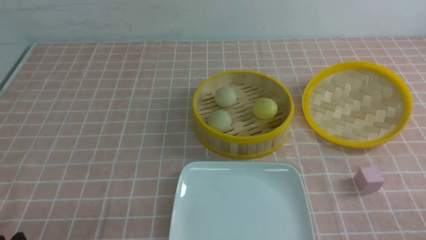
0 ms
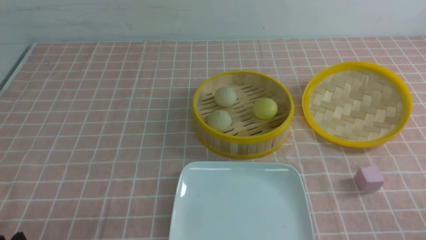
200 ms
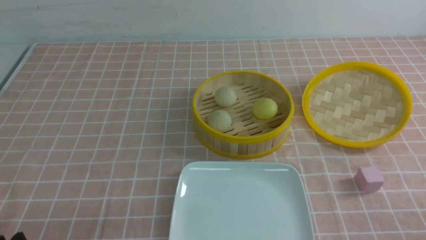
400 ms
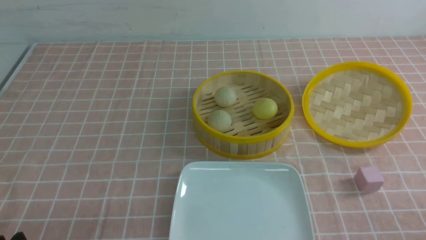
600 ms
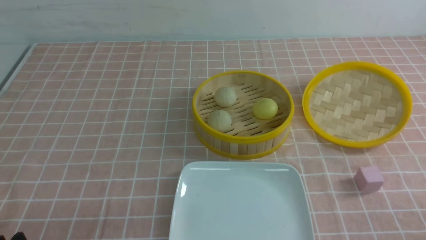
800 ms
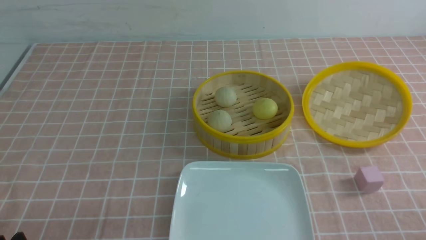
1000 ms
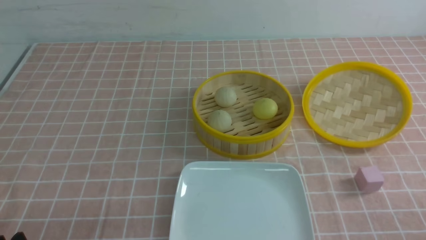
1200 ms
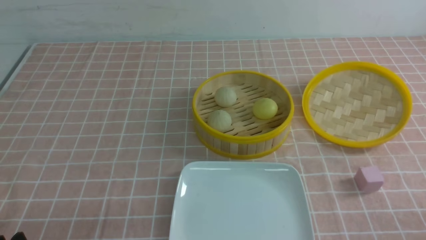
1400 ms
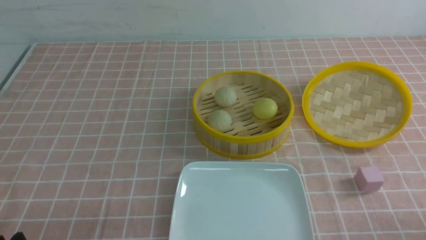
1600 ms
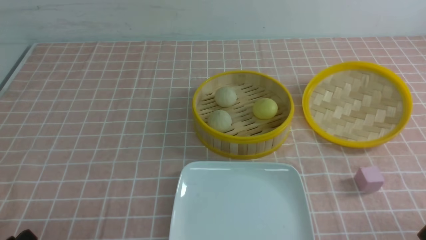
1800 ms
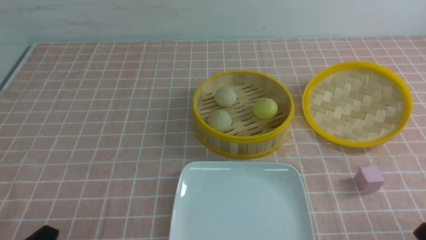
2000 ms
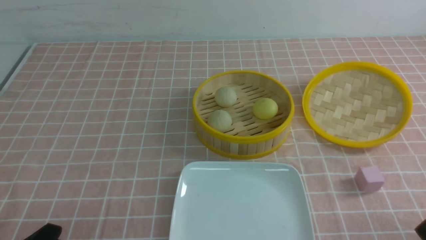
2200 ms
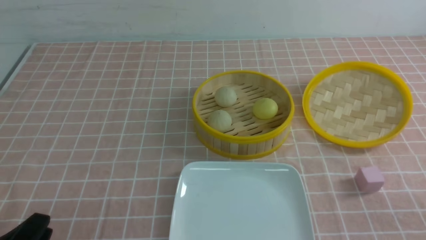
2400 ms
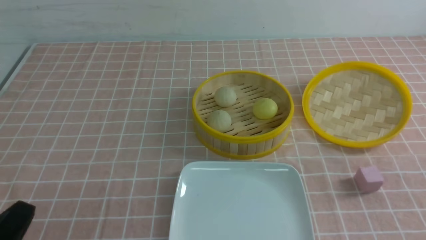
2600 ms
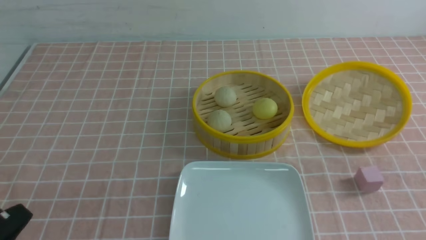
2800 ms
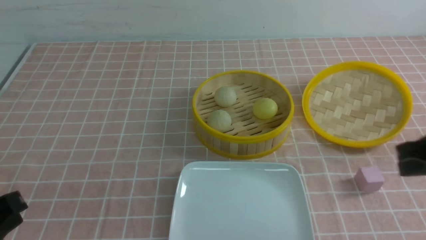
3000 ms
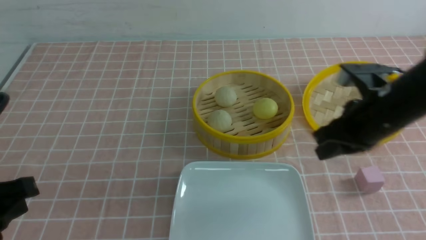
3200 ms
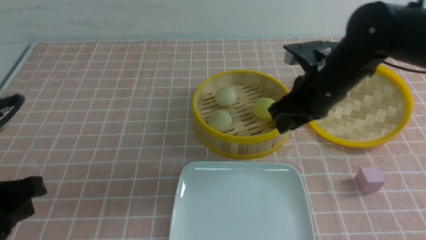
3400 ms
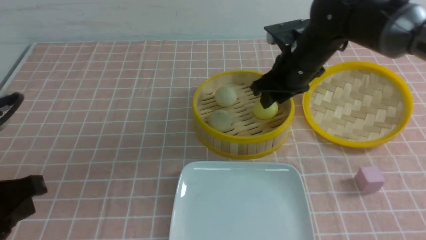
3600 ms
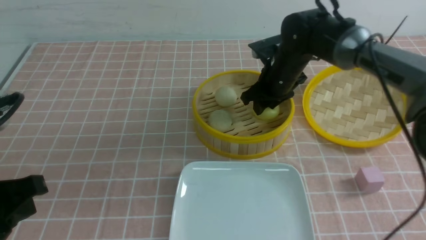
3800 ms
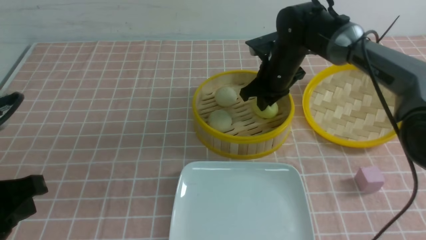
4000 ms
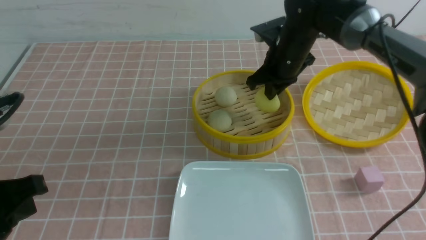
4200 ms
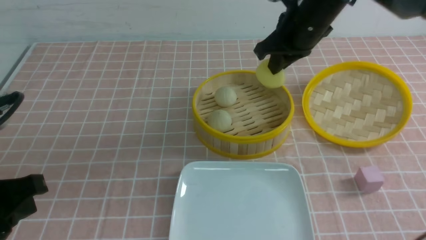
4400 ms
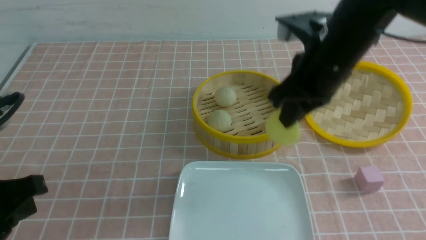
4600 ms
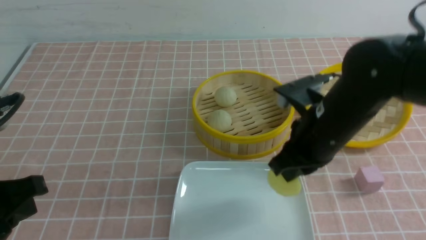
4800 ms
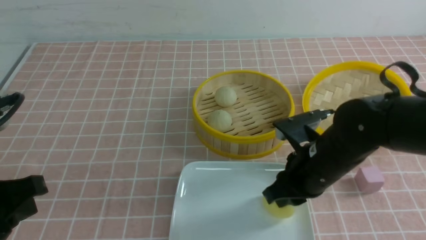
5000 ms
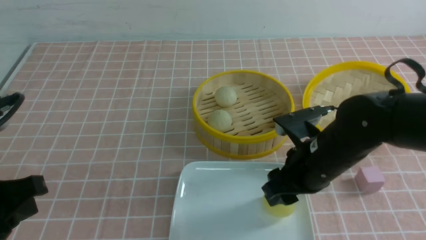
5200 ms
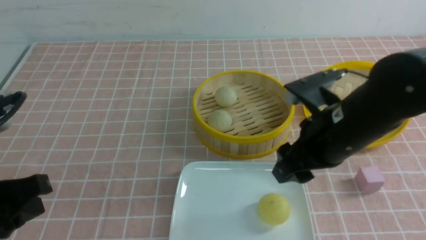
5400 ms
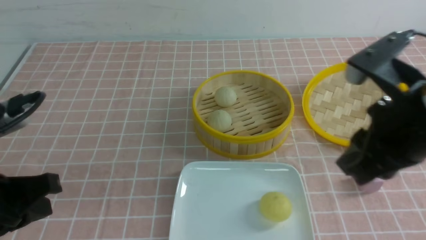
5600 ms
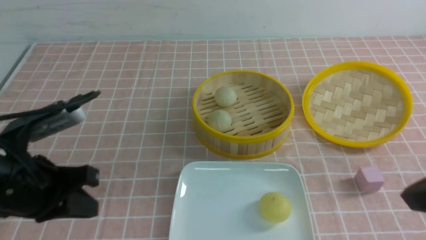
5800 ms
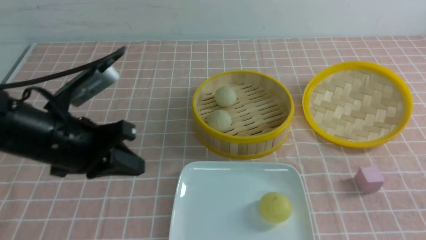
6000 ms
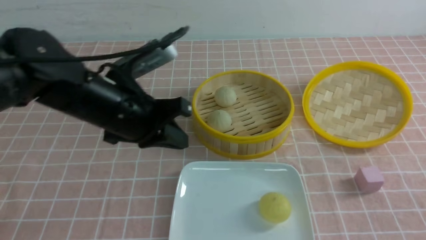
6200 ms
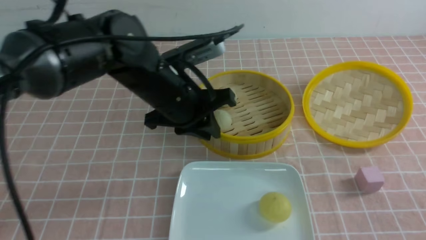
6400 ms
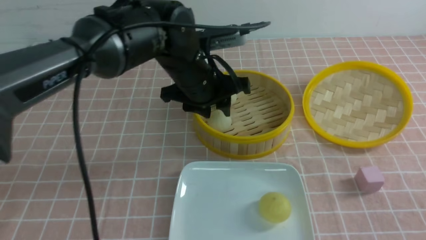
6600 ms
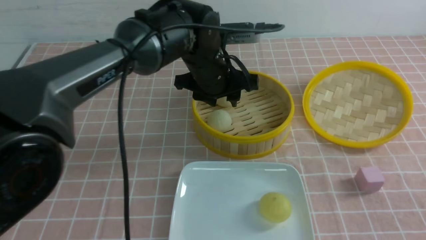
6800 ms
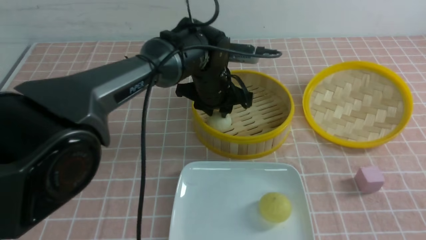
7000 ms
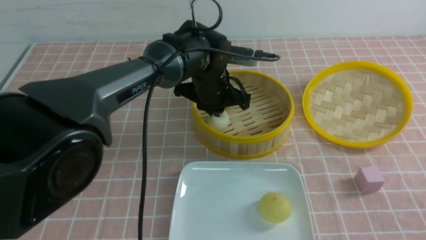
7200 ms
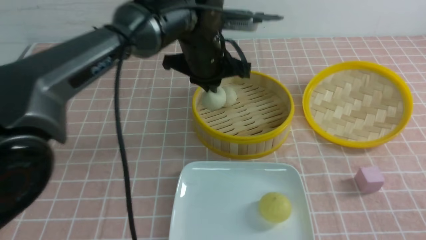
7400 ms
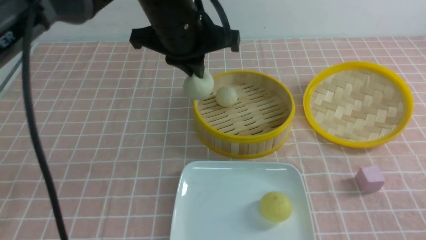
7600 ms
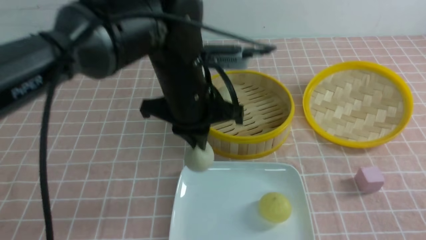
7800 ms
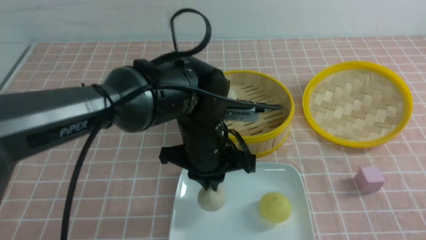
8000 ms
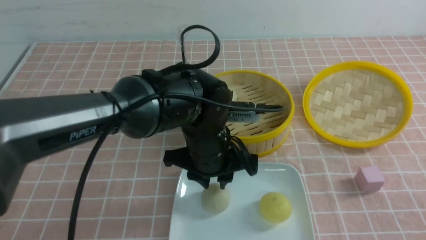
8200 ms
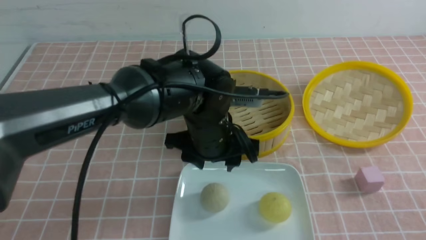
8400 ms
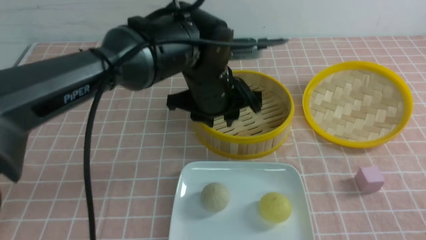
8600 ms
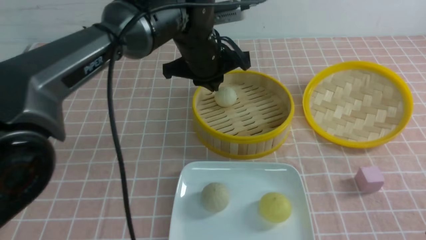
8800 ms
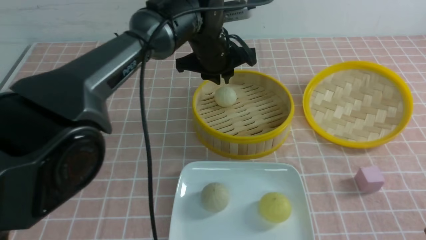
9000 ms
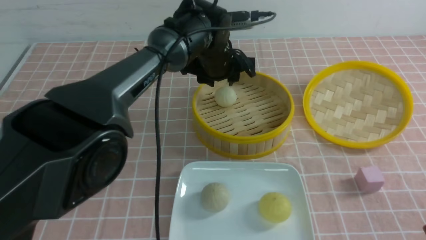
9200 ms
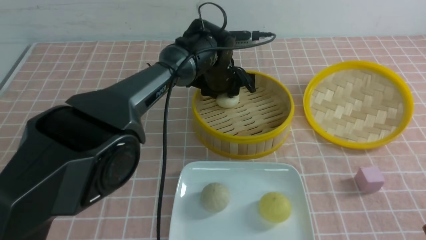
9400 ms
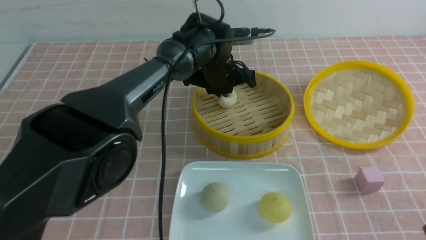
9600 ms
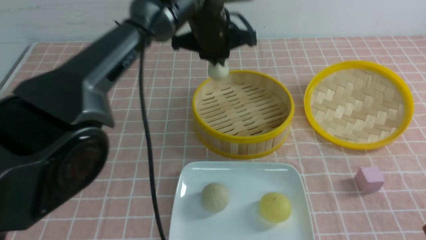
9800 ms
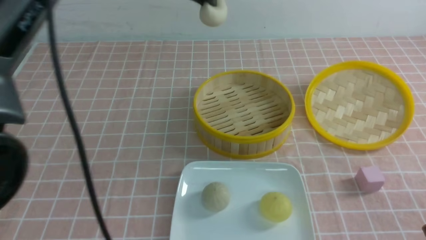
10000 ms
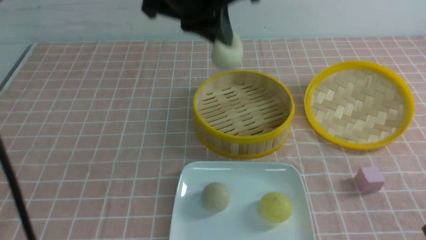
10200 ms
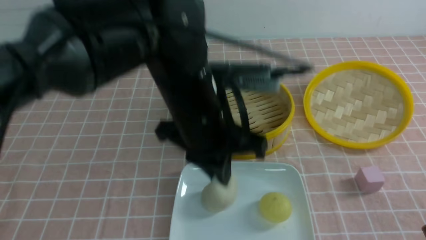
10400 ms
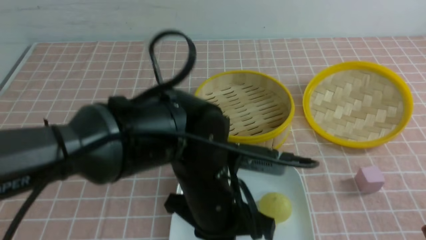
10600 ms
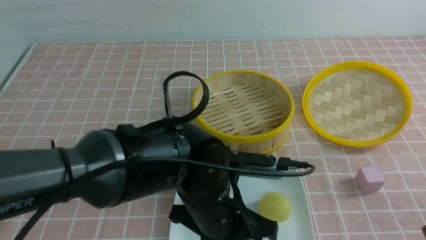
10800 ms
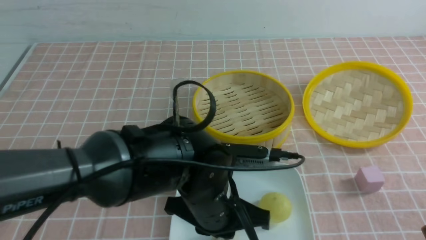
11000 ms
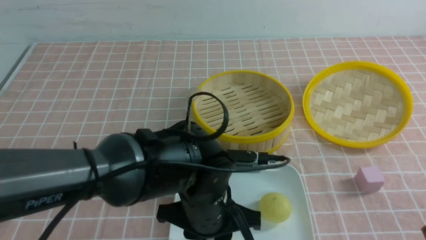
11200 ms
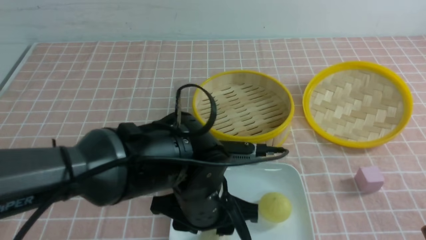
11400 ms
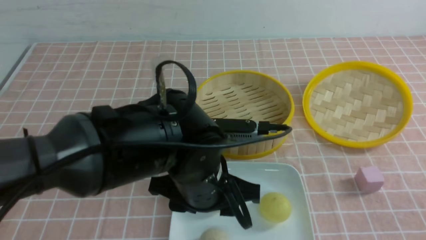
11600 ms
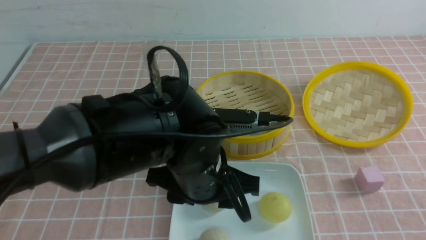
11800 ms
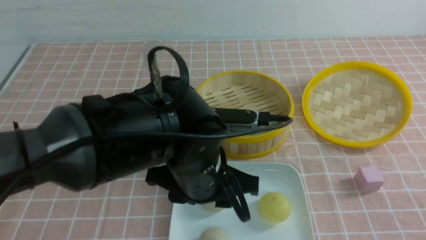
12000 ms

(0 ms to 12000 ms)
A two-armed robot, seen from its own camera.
Step, 0 ms - 4000 ms: use the right arm to grab the steamed stuffed bun that is closest to it.
Step, 4200 ms - 5000 ms: use the right arm to put the steamed stuffed bun into the plate.
Step, 5200 ms - 7200 ms: use the left arm to grab the steamed stuffed bun that is closest to it.
Step, 7400 ms - 8200 ms: use the left arm to put the steamed stuffed bun into the plate.
Step, 8400 ms - 9400 ms: use the left arm to grab the steamed stuffed bun that is closest to it.
Step, 9600 ms - 11400 ms: use the left arm to put the steamed stuffed bun into the plate.
1600 ms - 3000 ms: The left gripper heads upward, covering some 10 cm, and closes up, while the right gripper is displaced forward and upward by approximately 20 cm, and closes.
3000 ms - 4400 ms: The right gripper travels forward and to the left by approximately 20 cm, and opens, then closes again.
4400 ms - 6000 ms: The left gripper shifts approximately 15 cm forward and to the right. The right gripper moves backward and to the right, roughly 35 cm, and opens and closes again.
6000 ms - 7600 ms: The left gripper moves to the right and forward, some 20 cm, and opens, then closes again.
7600 ms - 9000 ms: The left gripper travels forward and downward by about 10 cm, and opens its fingers.
9000 ms - 10400 ms: The left gripper moves backward, approximately 20 cm, and closes.
10400 ms - 12000 ms: The left gripper shifts approximately 5 cm downward, and opens. The right gripper closes its fingers.

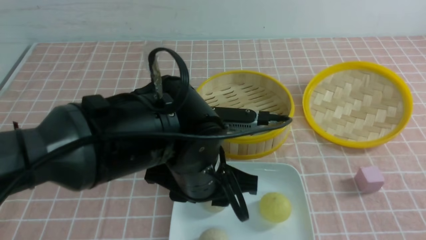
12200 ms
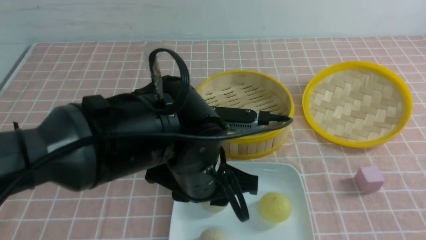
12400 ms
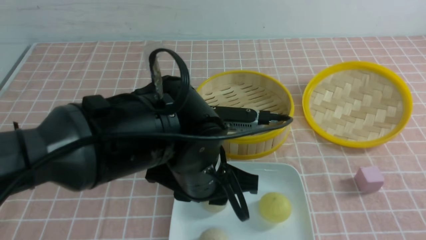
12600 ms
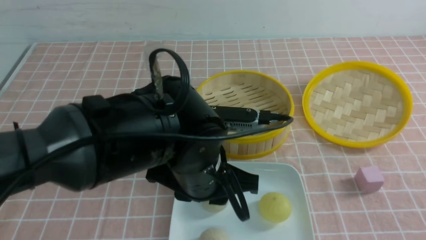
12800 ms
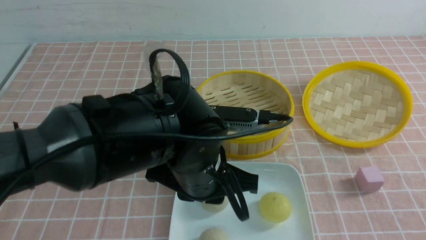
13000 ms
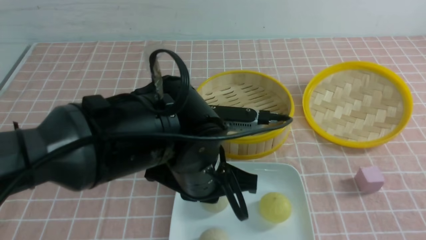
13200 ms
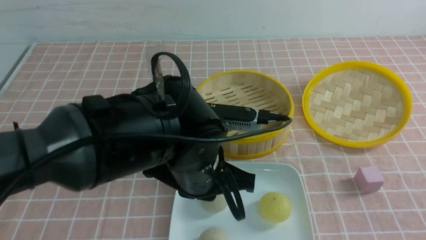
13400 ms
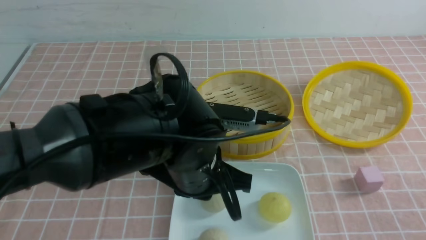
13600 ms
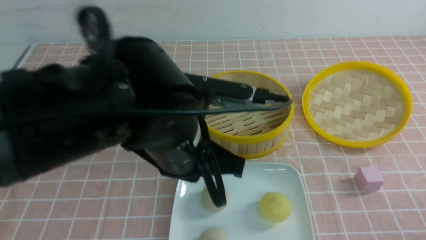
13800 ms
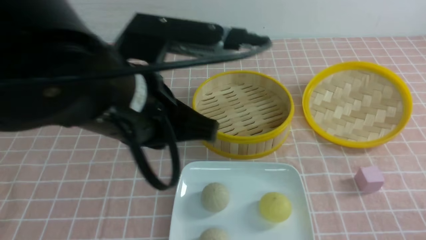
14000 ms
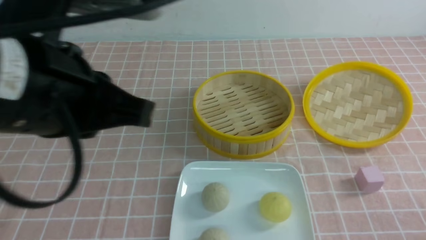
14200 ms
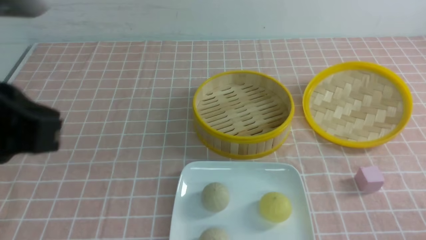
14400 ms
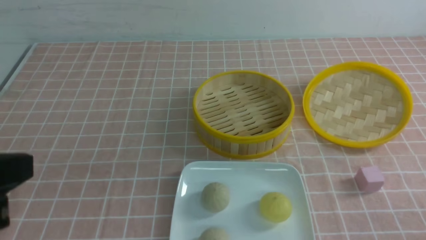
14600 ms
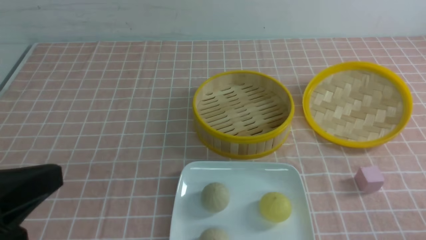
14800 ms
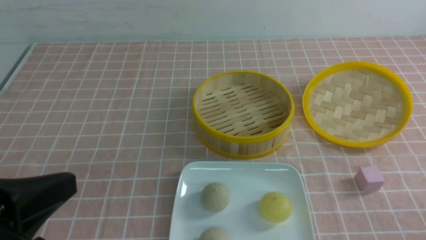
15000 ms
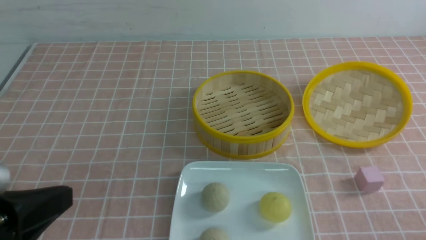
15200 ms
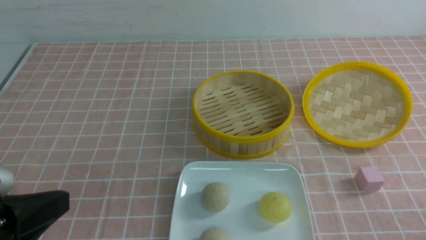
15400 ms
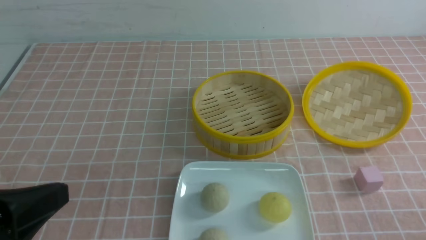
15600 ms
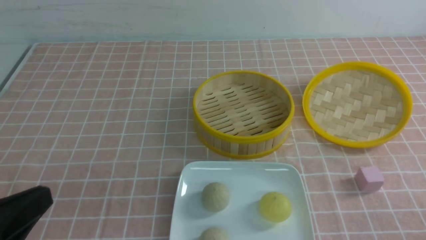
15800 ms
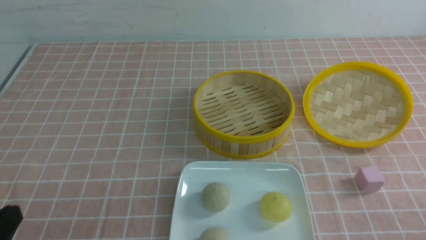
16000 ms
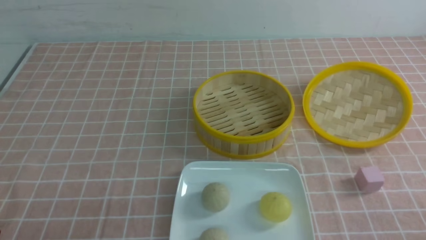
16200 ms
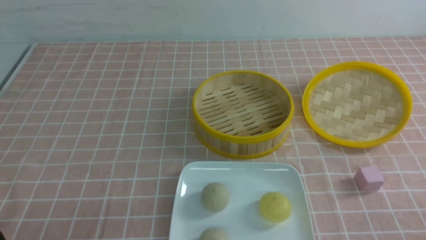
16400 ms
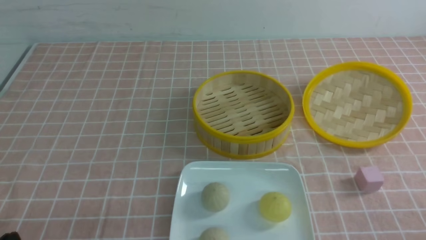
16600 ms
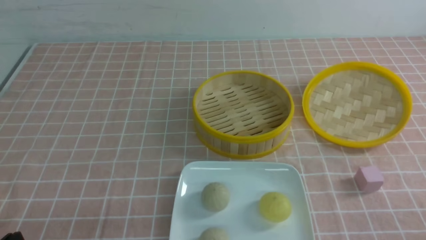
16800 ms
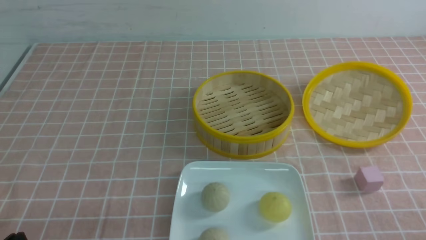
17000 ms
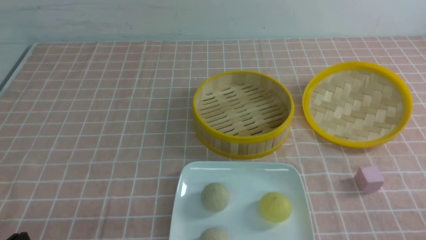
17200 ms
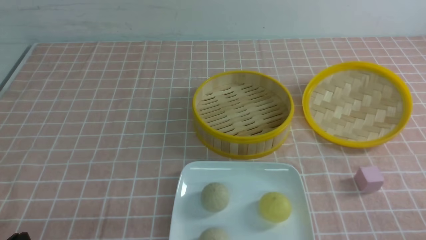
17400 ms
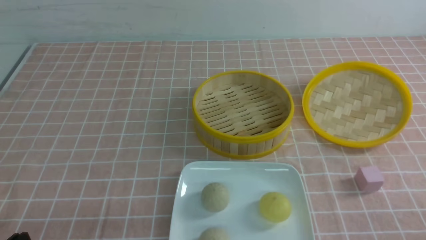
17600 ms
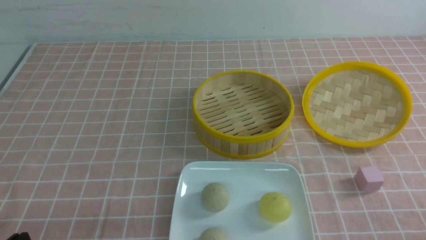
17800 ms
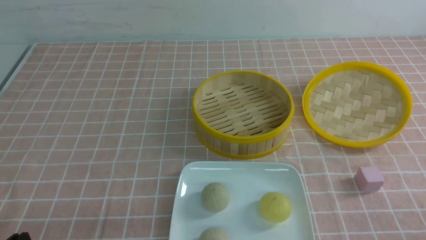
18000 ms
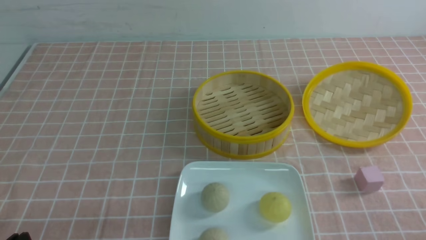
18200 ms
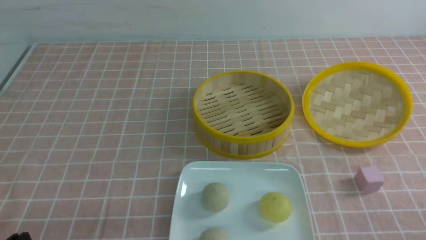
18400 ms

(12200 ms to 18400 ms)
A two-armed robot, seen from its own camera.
12200 ms - 13800 ms: The right gripper goes roughly 10 cm downward. Meanwhile the left gripper is displaced upward by some 5 cm, and closes its fingers.
13800 ms - 15400 ms: The left gripper travels to the left and backward by some 20 cm.
15400 ms - 16800 ms: The left gripper travels downward by about 15 cm.
16800 ms - 18400 ms: Neither gripper changes place.
